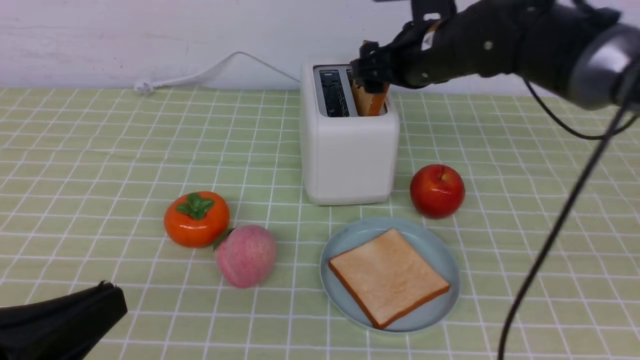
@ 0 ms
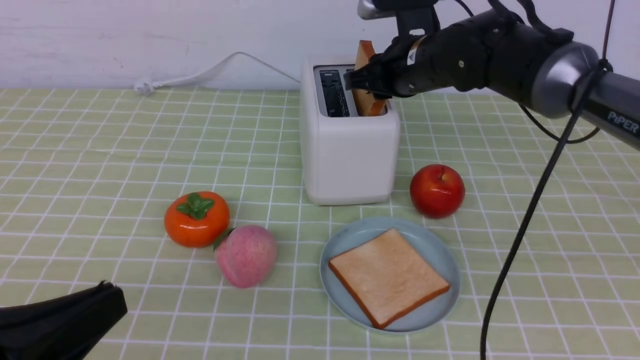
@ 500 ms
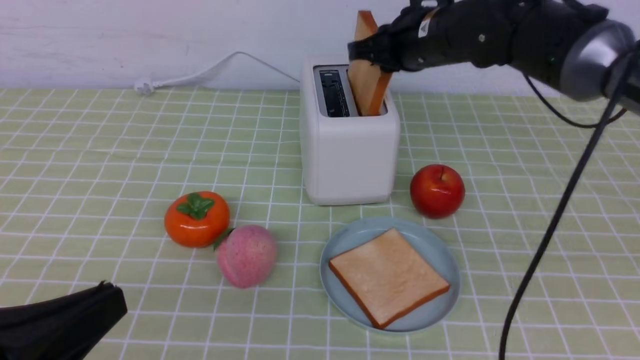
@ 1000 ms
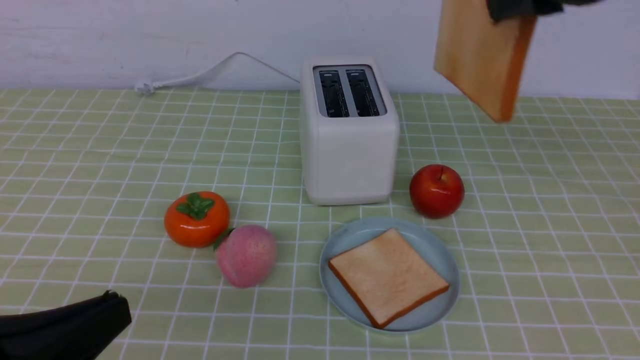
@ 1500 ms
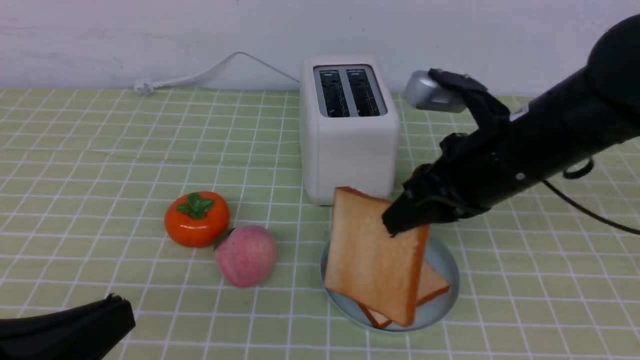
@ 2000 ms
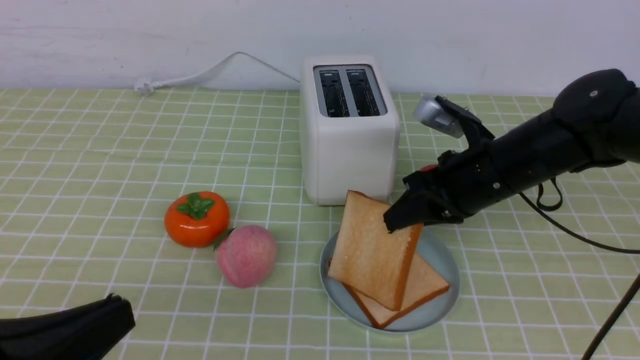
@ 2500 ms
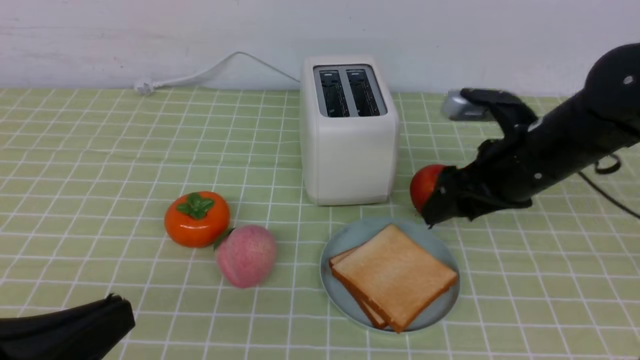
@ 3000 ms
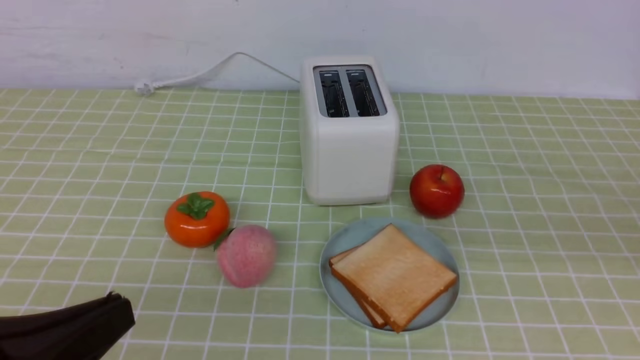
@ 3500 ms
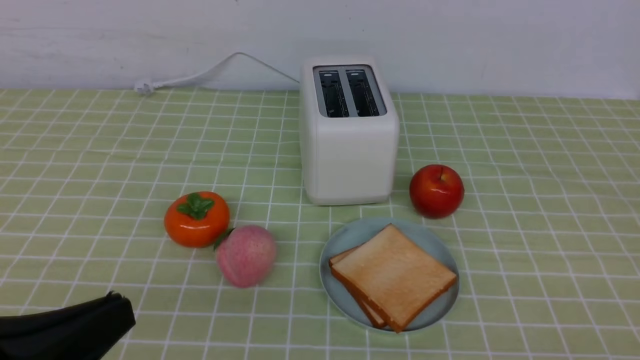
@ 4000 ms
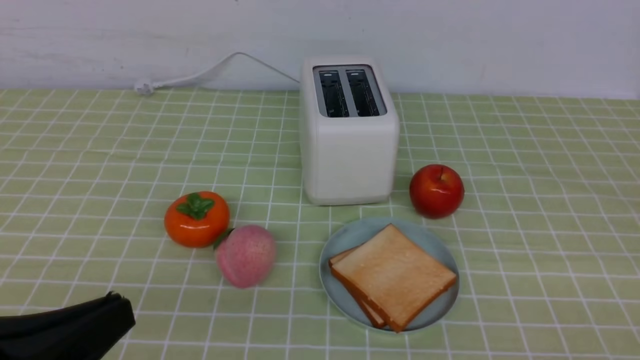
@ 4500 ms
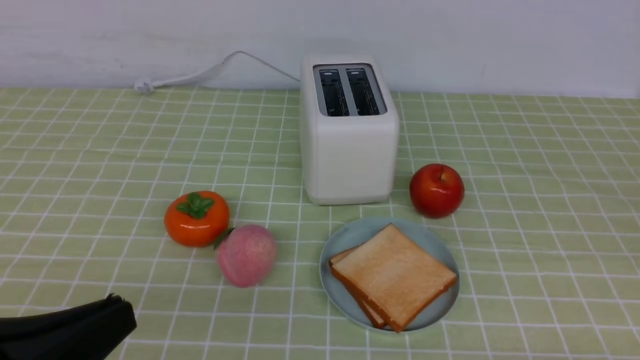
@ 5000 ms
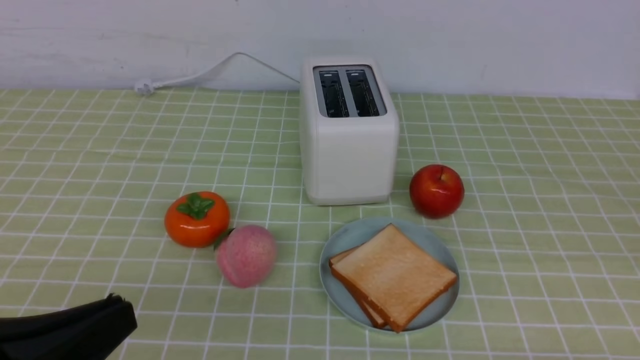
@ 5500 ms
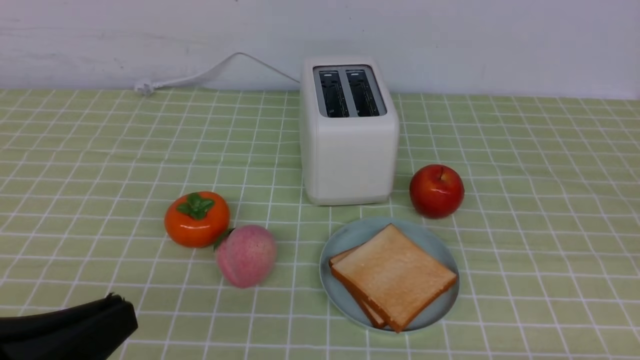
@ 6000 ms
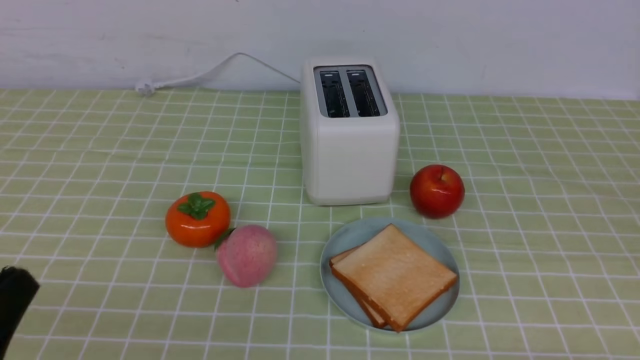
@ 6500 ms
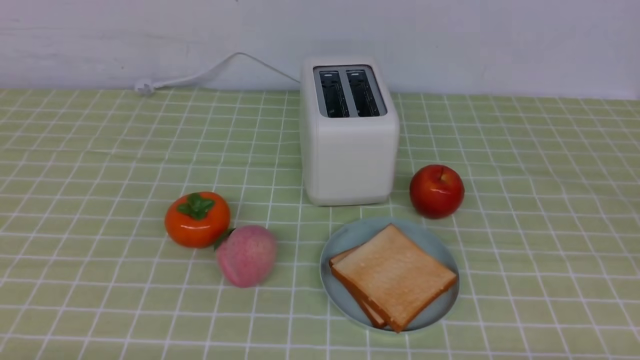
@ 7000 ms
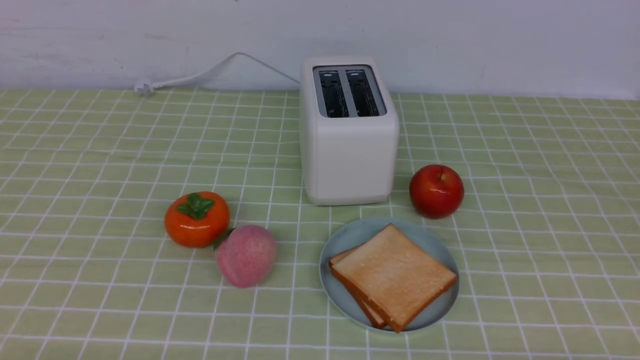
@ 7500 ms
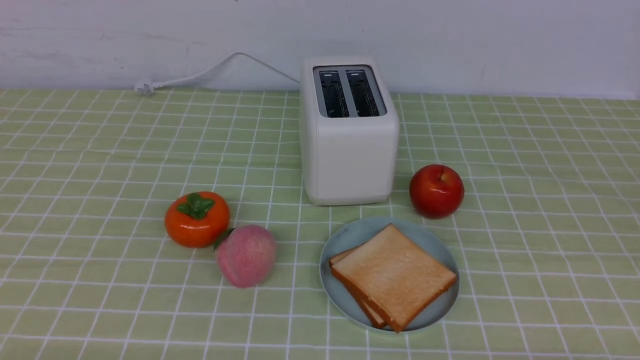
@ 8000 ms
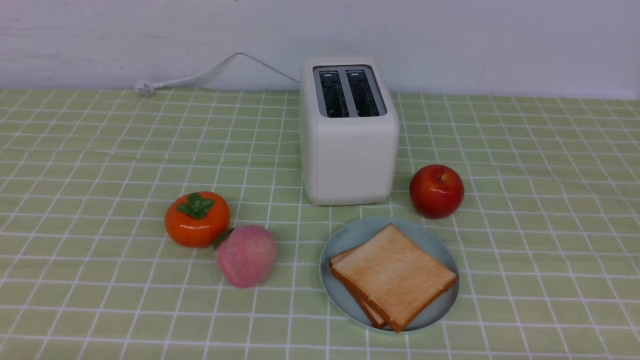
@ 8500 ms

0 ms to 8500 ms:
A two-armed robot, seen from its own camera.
Task of the whole recording: take toasted bread from bread machine on green coffee tablecloth place on plate.
Step, 1500 ms to 3000 ms: use the right arm to put a slice of bread into the plate.
0 ms to 2000 ms: The right gripper goes about 15 cm backward, and closes its fingers.
2000 ms to 4000 ms: The right gripper goes approximately 30 cm backward and to the right, and opens, then closes once more.
4000 ms to 6500 ms: The left gripper ends up approximately 5 cm from where it was.
6500 ms to 8500 ms: The left gripper heads downward, covering approximately 5 cm.

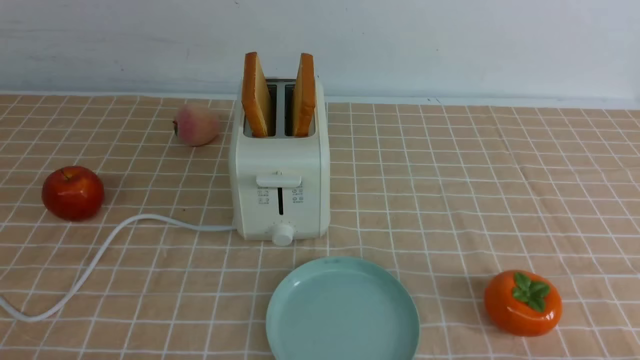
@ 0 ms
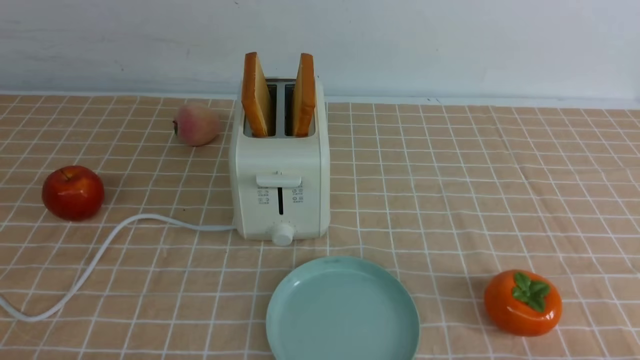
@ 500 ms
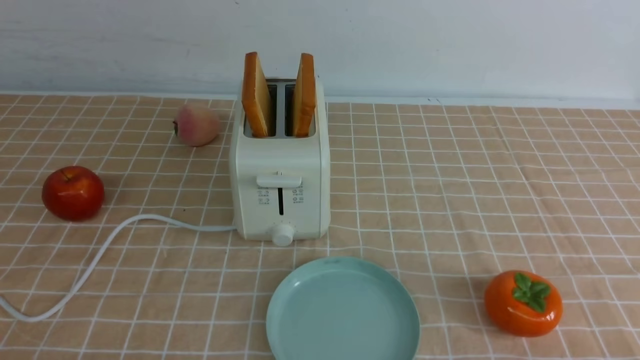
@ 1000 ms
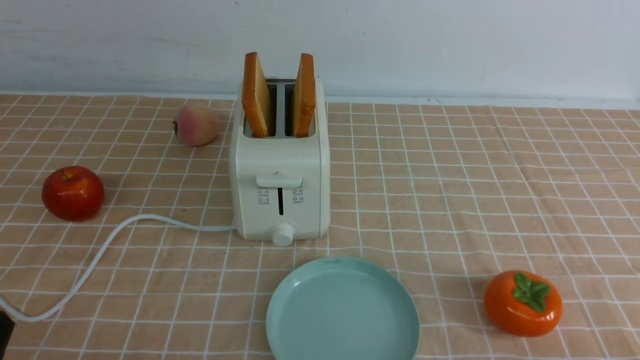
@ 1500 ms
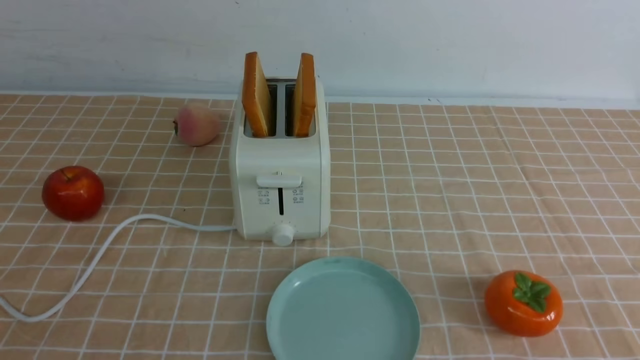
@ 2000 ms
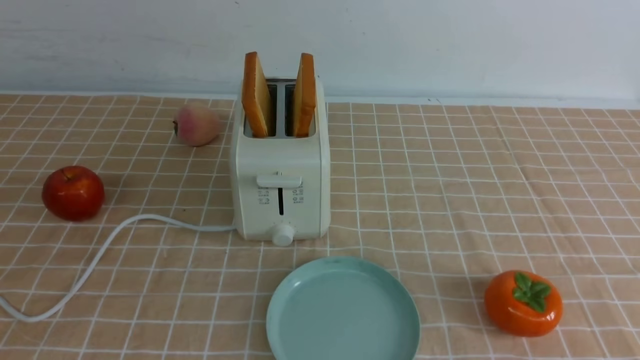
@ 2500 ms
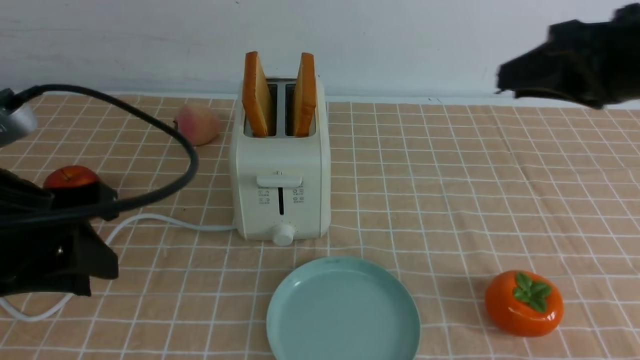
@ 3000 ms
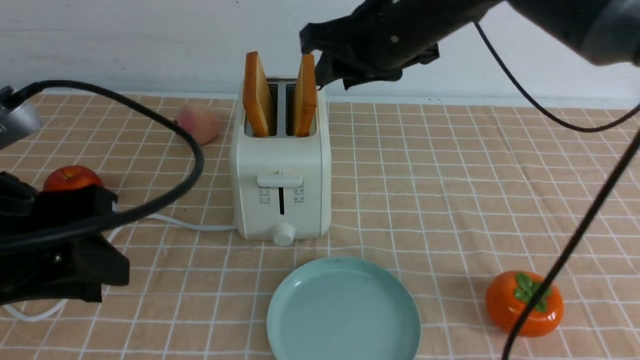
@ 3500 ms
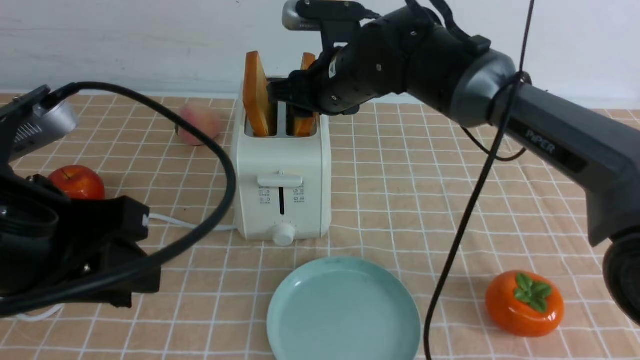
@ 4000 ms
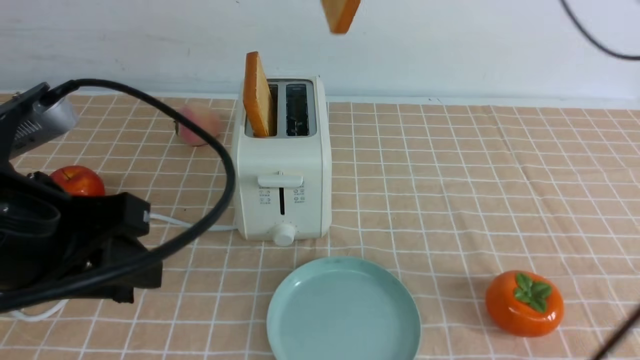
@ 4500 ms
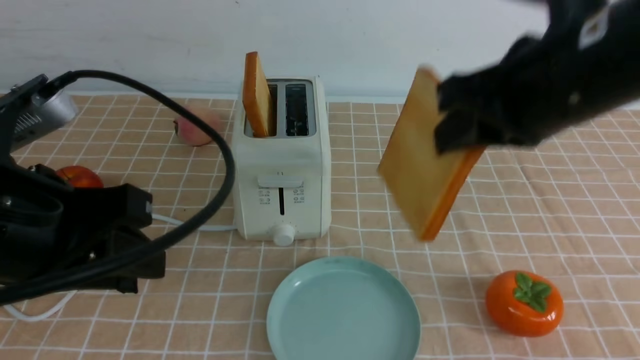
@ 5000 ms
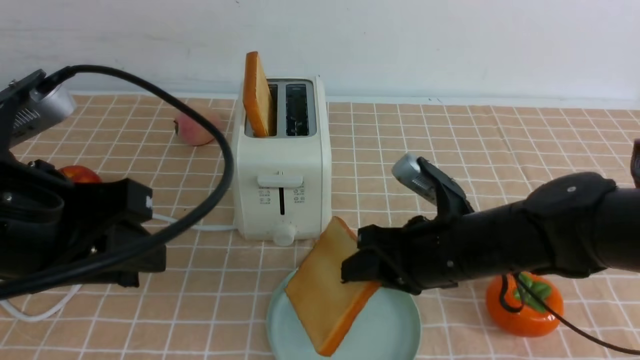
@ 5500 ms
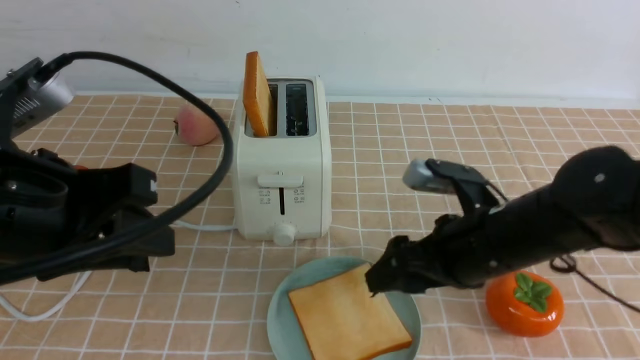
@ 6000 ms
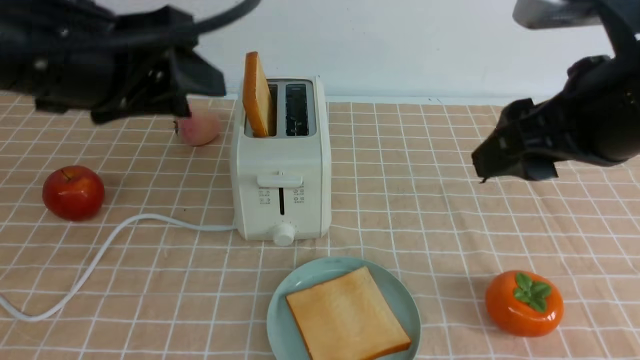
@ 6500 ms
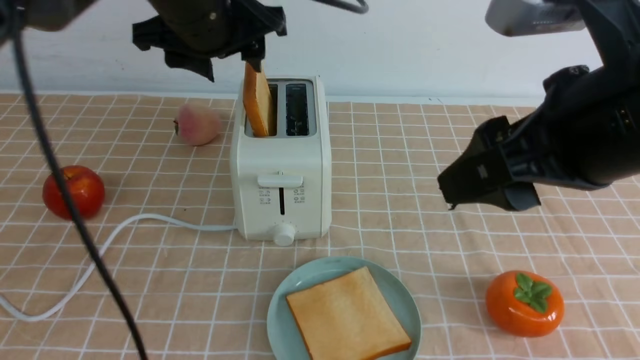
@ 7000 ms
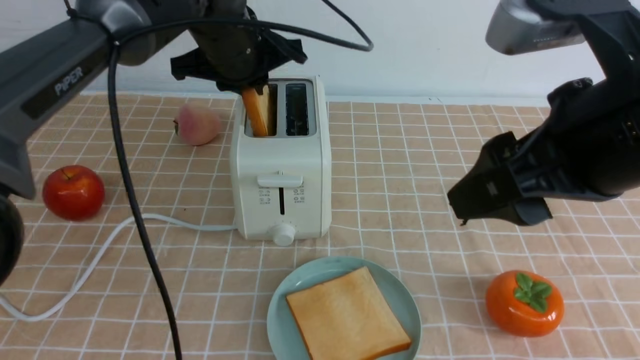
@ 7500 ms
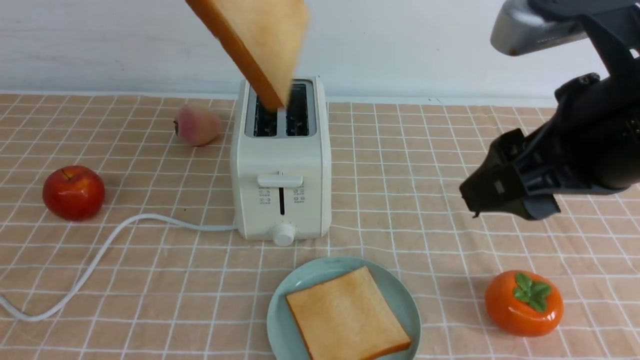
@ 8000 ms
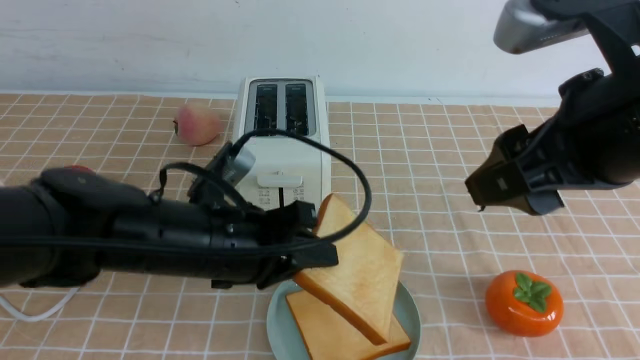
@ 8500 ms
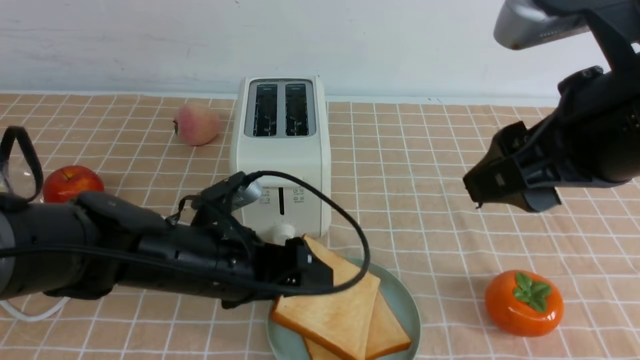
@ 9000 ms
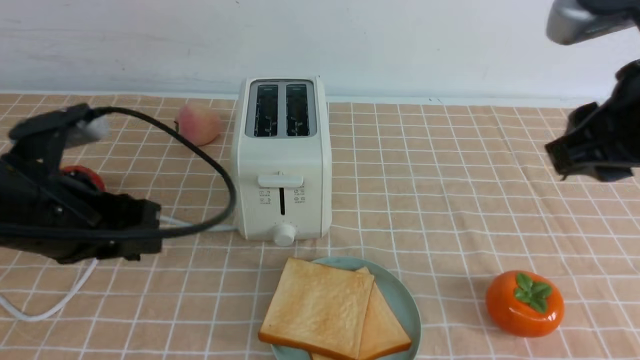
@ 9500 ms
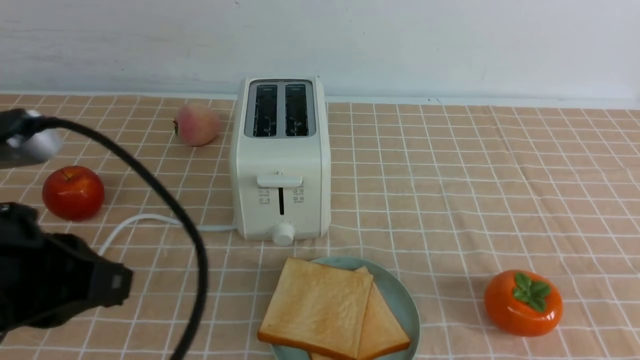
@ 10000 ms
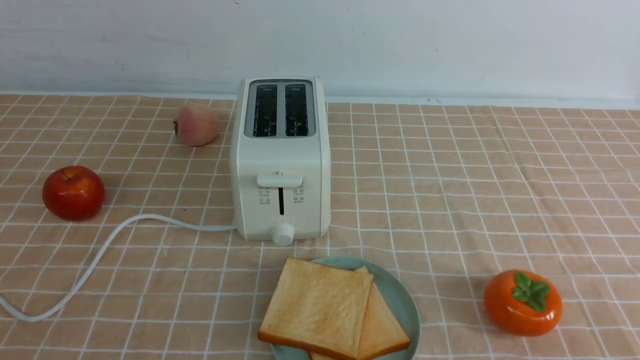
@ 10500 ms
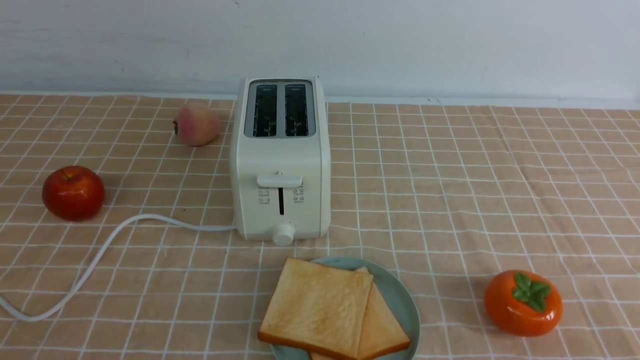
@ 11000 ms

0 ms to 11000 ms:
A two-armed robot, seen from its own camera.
Task of the whole recording: take toasted bread from bread machine on light coffee tablecloth place on plate.
Step, 0 ms to 4000 ms: use the right arm to take out a slice of bread.
Step, 4500 ms to 6000 ms: use the right arm to put a slice of bread into the plate.
Step, 6500 ms to 7500 ms: use the left arm to take out a slice of bread.
Step, 8000 ms to 9000 ms: use the left arm to put a slice of bread into the empty plate.
2000 ms to 3500 ms: The right gripper moves forward and to the left, roughly 40 cm. Meanwhile the left gripper travels forward and to the right by about 15 cm.
3500 ms to 5500 ms: The right gripper swings up and down, roughly 25 cm each way, with 2 reversals.
5500 ms to 7500 ms: The right gripper goes some 20 cm upward and backward, and opens up. Meanwhile the left gripper is displaced forward by roughly 25 cm, and opens and closes again.
7500 ms to 9000 ms: The left gripper moves downward and backward, about 25 cm, and opens.
9000 ms to 11000 ms: The right gripper shifts about 25 cm downward, backward and to the right, and closes, while the left gripper moves backward, to the left and upward, roughly 35 cm, and closes up.
